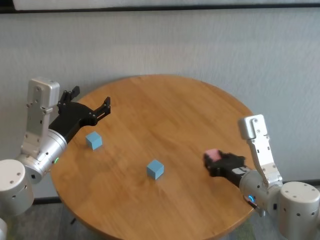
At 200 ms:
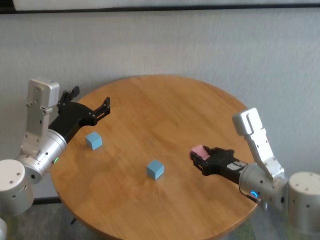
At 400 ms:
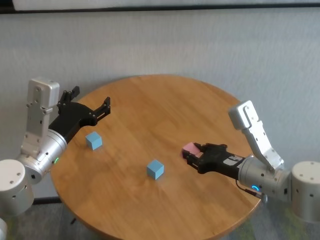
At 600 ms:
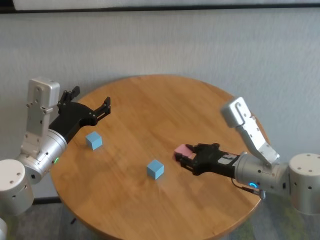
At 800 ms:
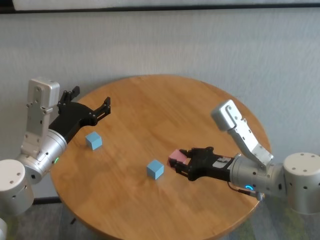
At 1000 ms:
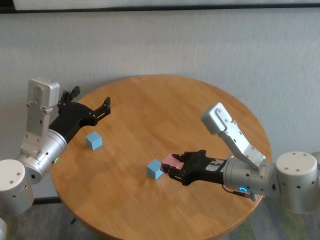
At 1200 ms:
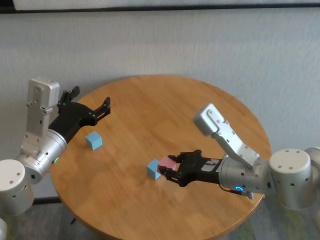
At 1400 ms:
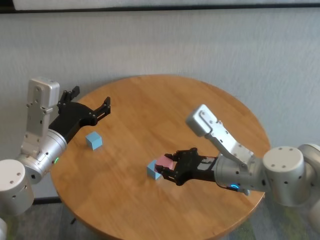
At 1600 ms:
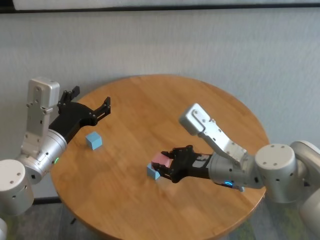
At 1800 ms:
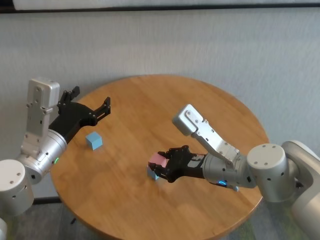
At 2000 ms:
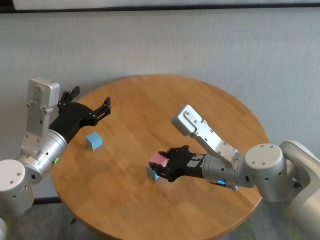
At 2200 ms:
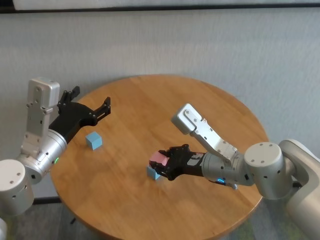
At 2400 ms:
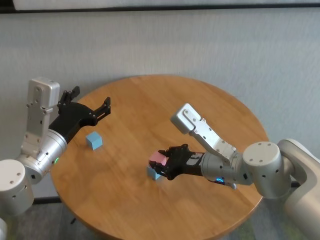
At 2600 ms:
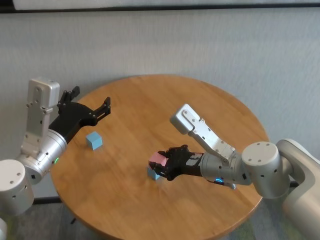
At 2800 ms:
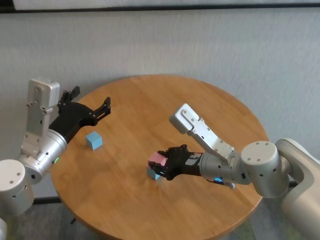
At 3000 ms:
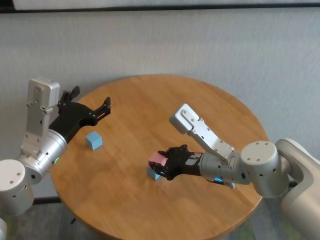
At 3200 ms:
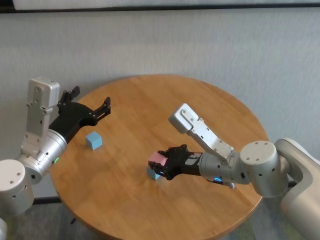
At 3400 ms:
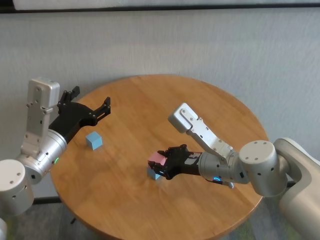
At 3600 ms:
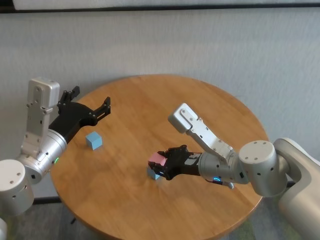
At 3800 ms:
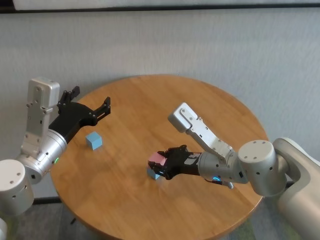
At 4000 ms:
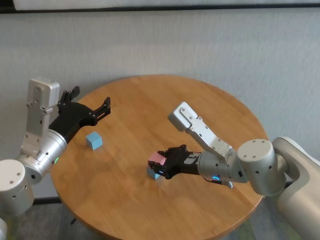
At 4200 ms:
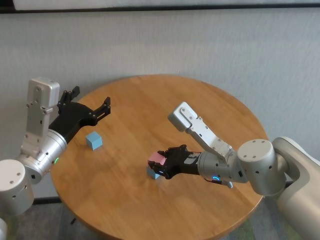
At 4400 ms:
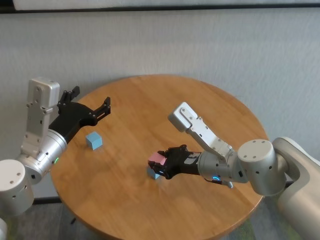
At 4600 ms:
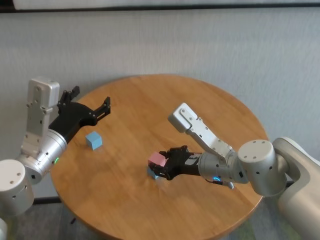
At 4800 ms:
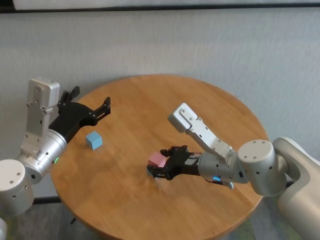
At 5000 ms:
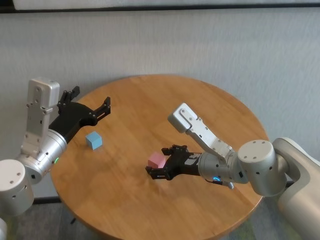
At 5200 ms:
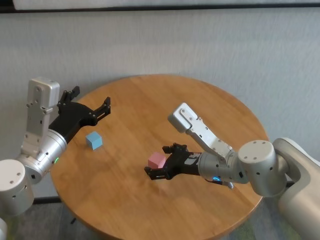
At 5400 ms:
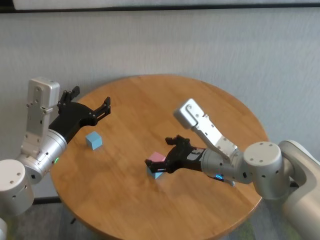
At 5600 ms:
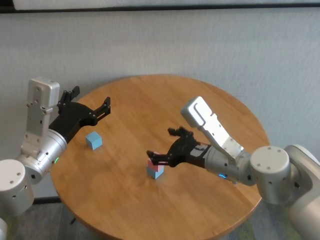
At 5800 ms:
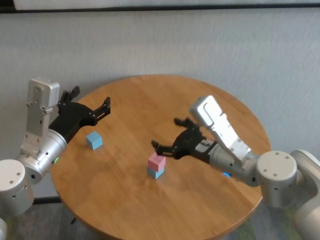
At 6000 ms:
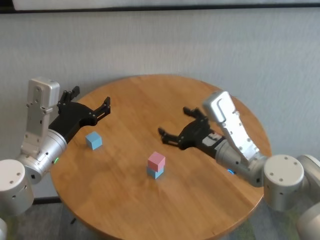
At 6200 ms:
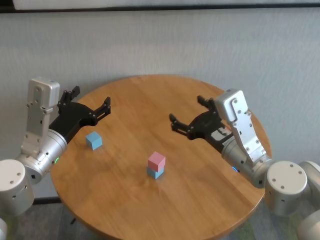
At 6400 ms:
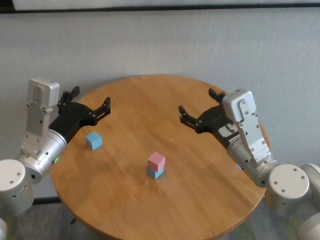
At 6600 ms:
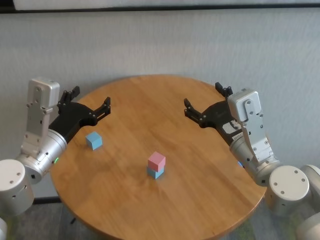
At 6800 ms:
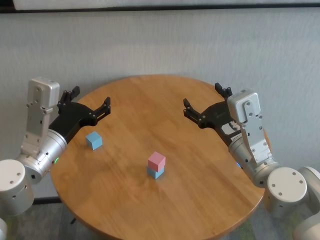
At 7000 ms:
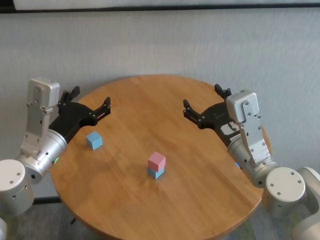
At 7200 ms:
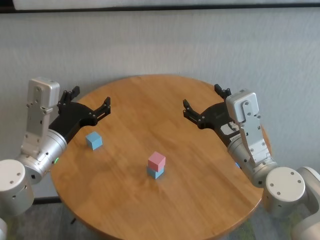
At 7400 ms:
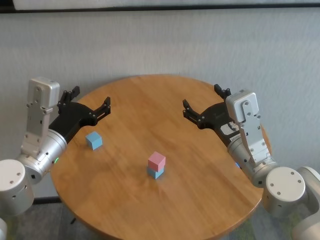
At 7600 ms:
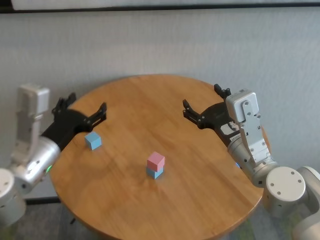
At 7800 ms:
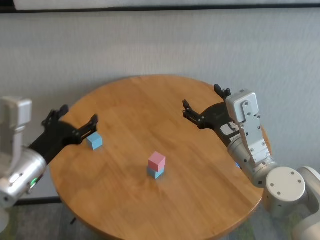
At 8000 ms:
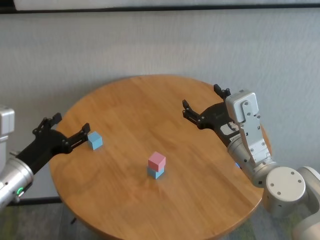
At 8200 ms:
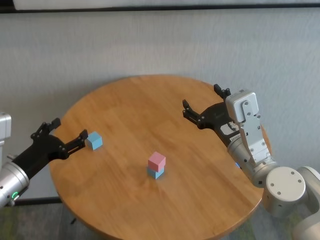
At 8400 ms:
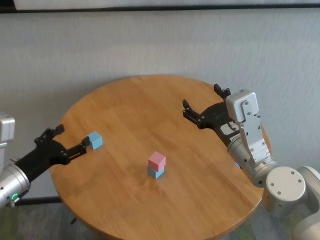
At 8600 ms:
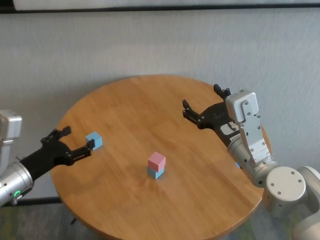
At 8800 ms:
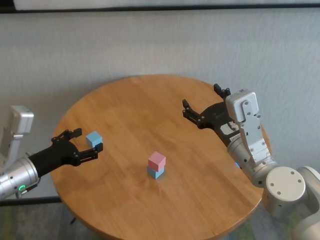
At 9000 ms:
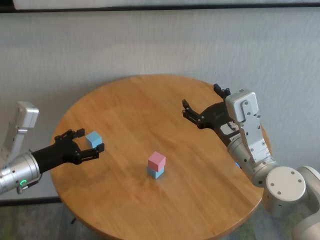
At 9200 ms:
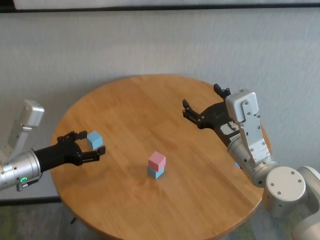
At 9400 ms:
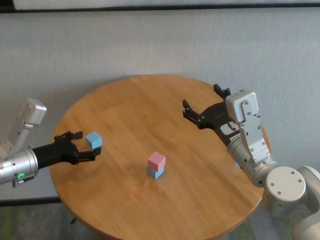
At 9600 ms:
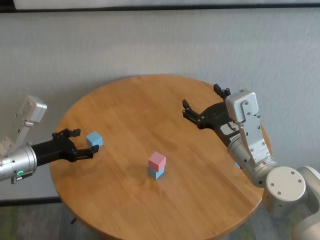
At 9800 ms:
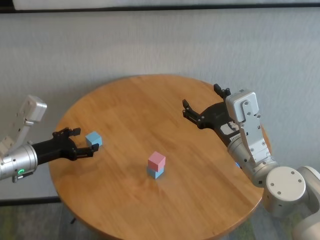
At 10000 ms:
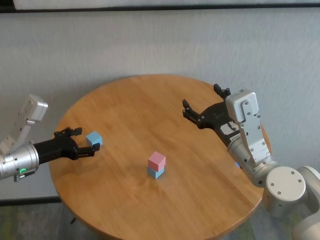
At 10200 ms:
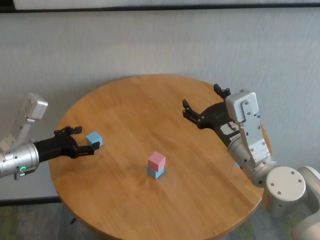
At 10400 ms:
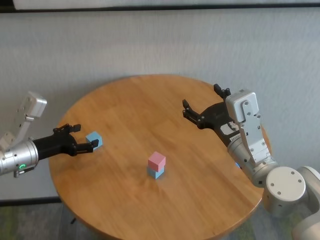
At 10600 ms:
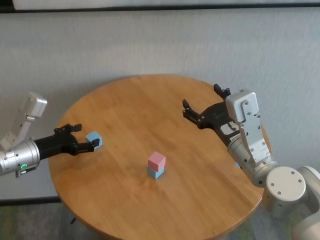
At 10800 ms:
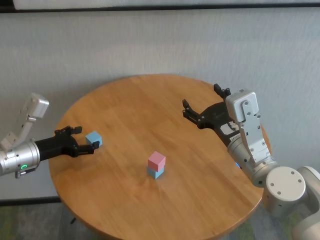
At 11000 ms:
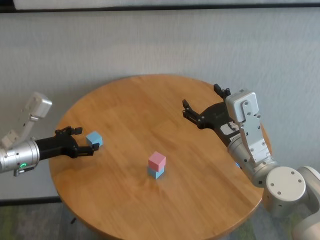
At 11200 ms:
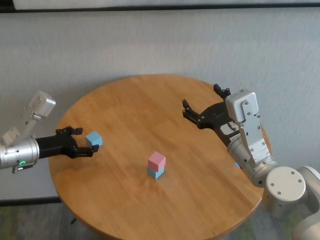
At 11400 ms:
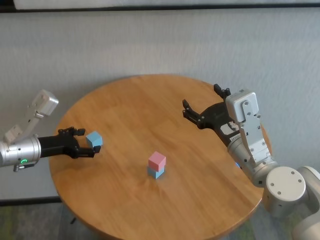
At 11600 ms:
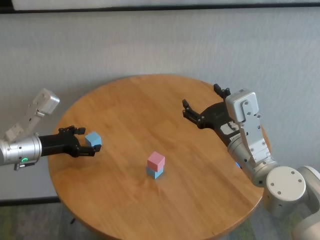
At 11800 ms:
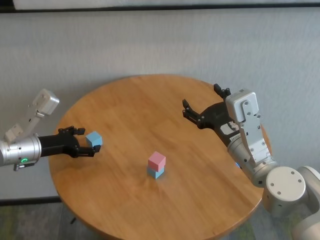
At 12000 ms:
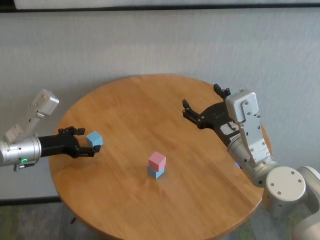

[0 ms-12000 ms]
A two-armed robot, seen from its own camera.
Task of the whole recording: stack building blocks on the table.
Step, 0 ms to 5000 ms: Place the pink building block on the blue building blocks with right gripper.

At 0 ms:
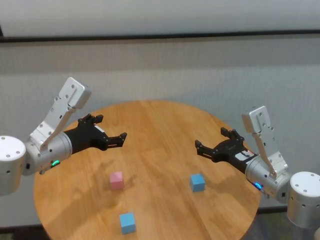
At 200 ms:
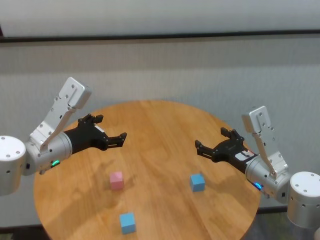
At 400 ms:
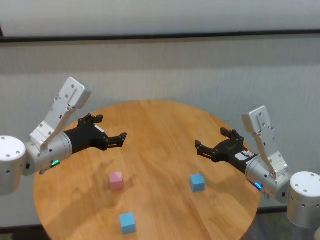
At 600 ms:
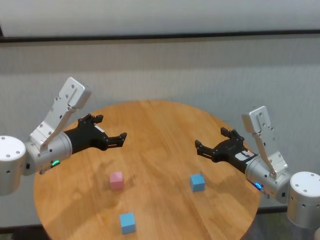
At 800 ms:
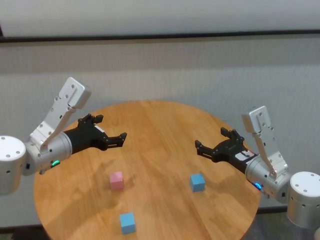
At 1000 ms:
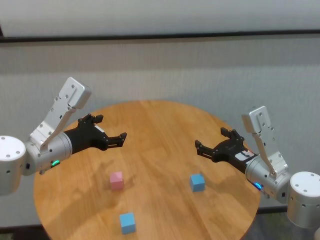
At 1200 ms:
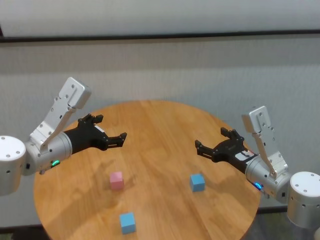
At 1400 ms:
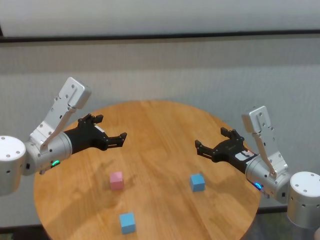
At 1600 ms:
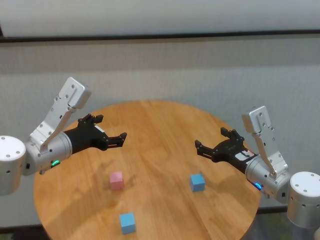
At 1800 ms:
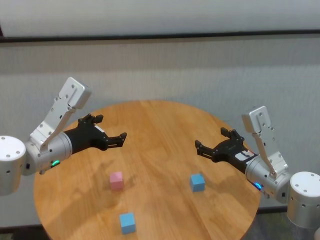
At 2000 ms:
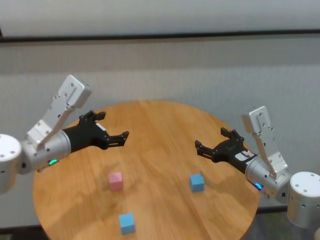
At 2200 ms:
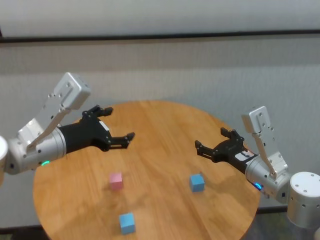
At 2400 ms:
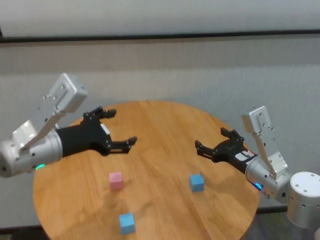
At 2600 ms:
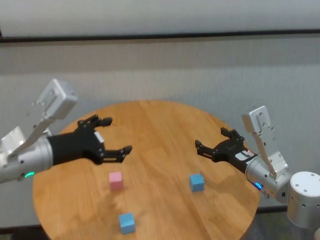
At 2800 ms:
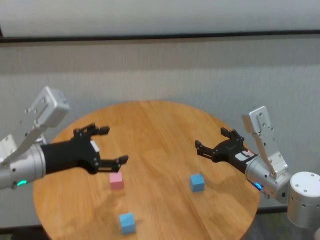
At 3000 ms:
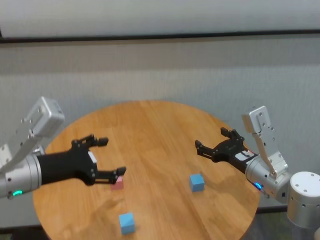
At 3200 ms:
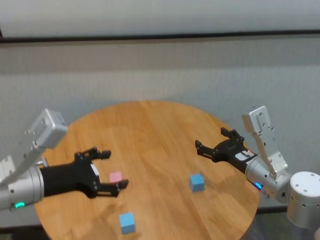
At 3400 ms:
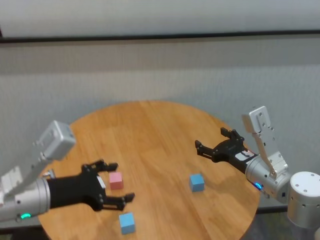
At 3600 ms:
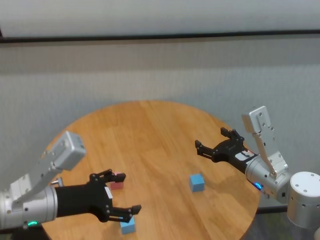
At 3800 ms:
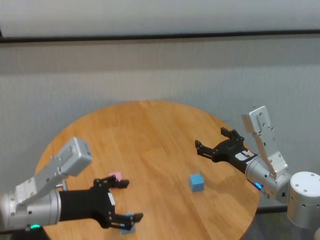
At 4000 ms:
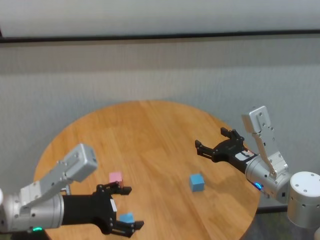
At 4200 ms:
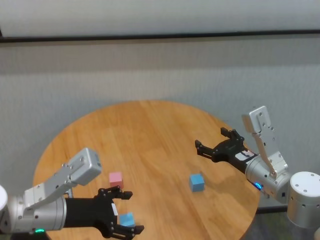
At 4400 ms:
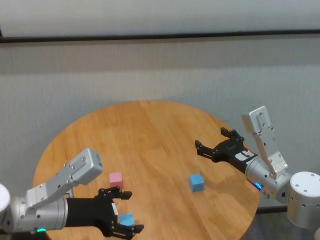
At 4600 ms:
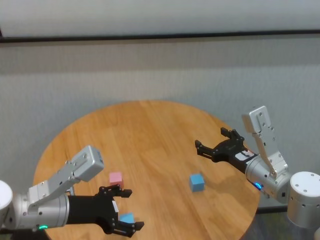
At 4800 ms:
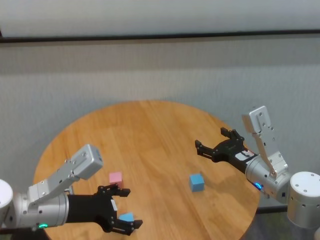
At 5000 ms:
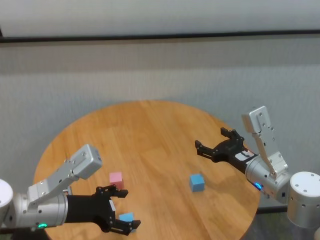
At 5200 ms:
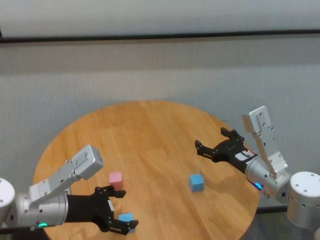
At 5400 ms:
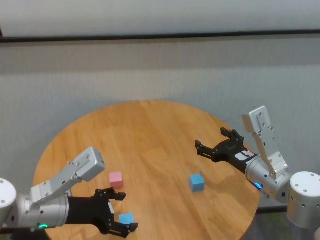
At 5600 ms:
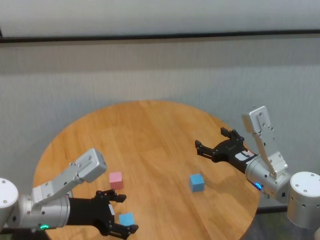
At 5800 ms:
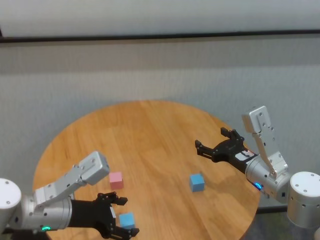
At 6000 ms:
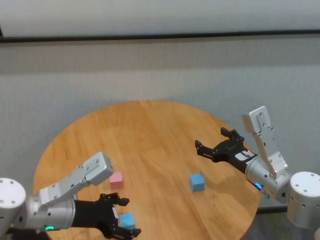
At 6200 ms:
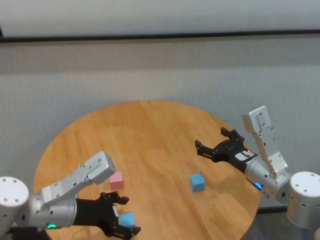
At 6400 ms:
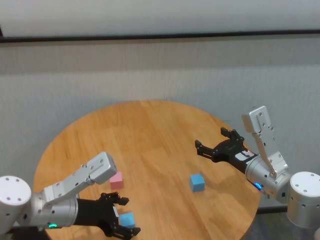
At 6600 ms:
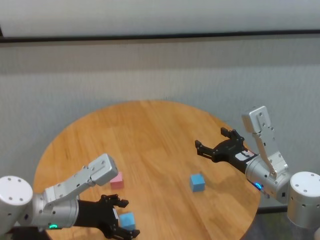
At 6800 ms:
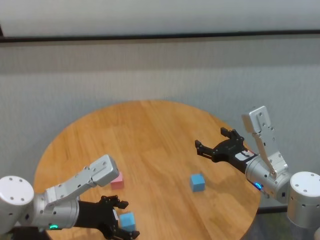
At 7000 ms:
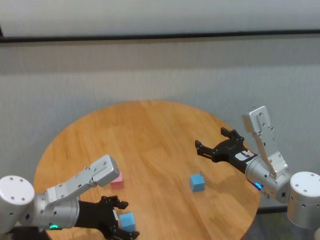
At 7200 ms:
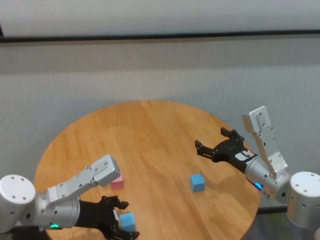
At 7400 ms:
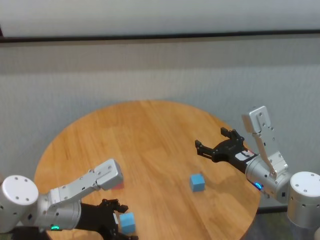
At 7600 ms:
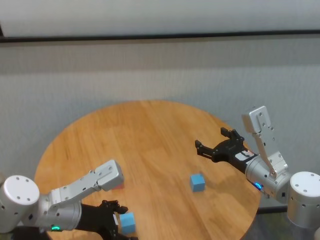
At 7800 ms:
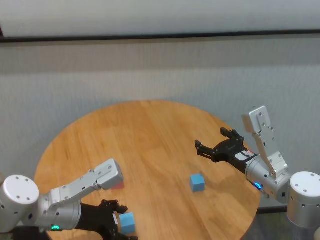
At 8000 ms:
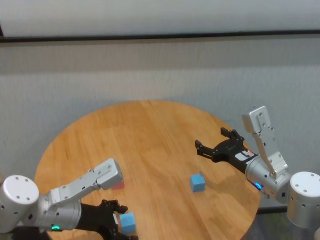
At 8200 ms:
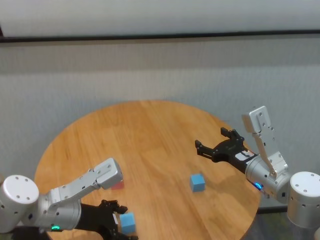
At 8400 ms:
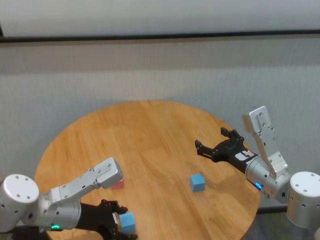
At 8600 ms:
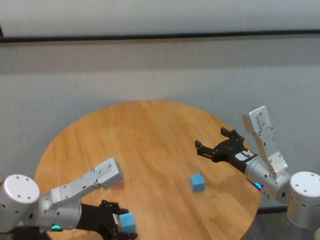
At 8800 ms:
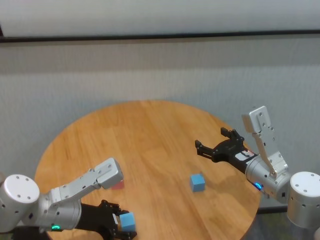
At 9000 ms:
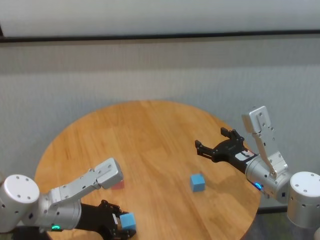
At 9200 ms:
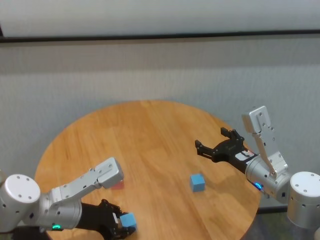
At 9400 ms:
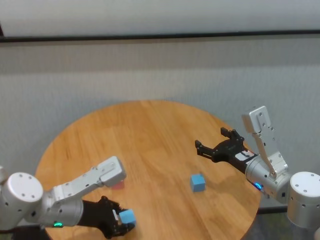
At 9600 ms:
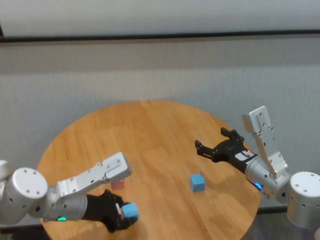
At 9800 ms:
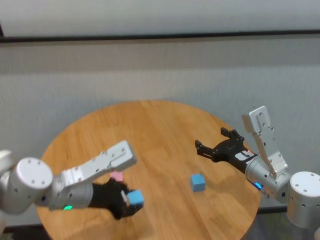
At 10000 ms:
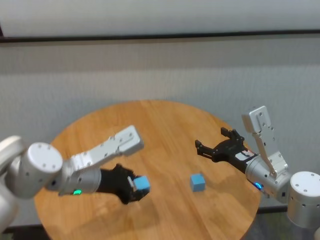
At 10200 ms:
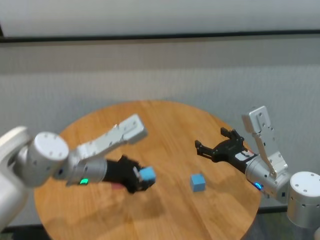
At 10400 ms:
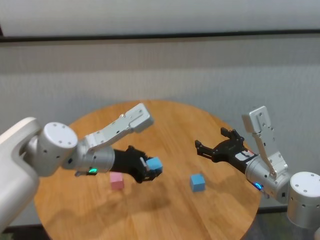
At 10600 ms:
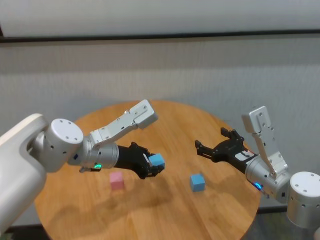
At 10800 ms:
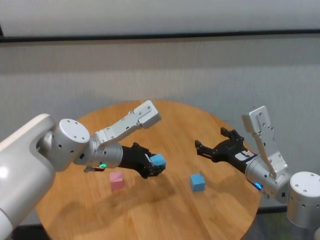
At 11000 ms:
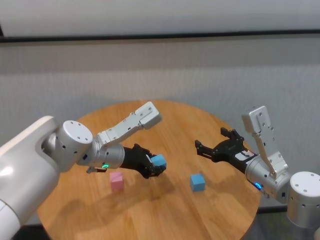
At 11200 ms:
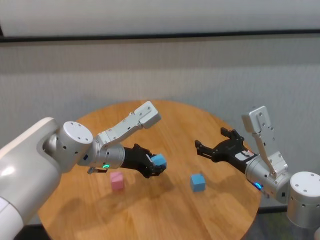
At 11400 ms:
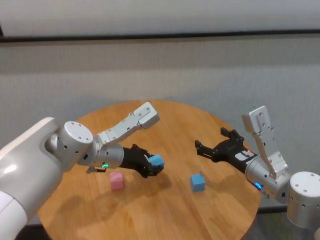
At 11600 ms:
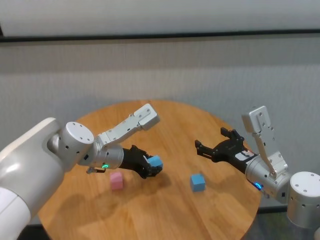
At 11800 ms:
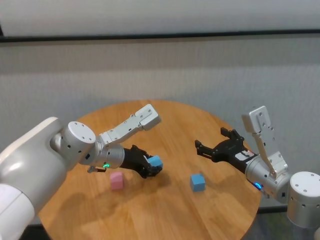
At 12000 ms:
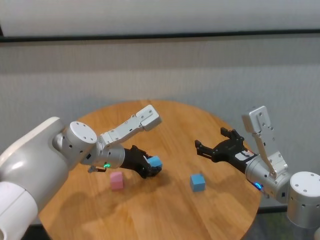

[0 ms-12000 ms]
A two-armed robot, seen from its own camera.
Task of the whole recording: stack building blocks on the table.
Step, 0 ms to 9000 ms: Grasp the blue building block with left gripper.
